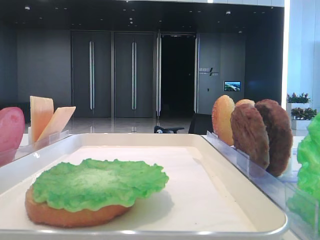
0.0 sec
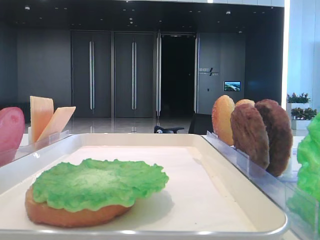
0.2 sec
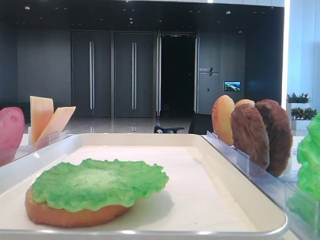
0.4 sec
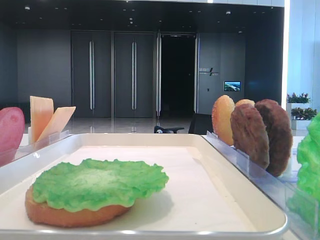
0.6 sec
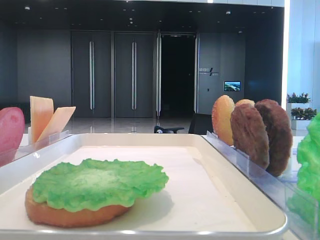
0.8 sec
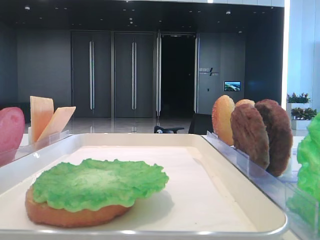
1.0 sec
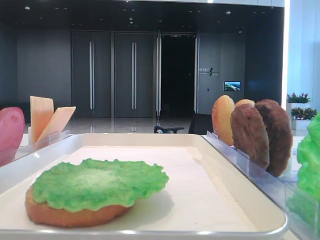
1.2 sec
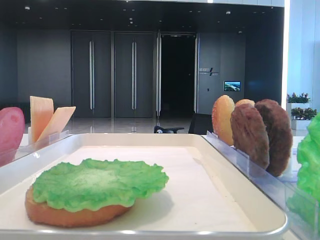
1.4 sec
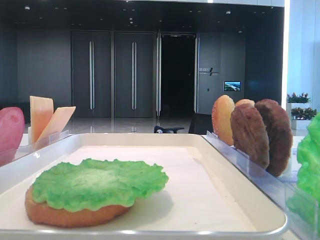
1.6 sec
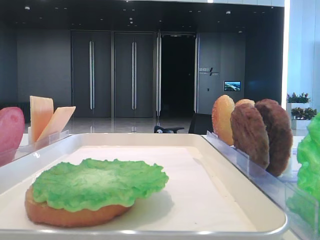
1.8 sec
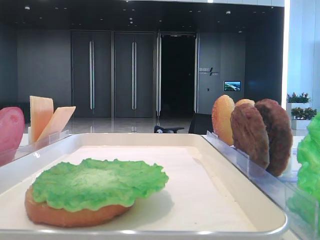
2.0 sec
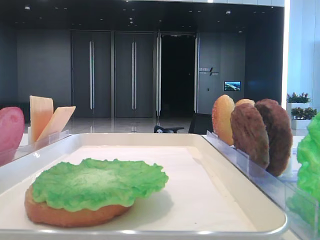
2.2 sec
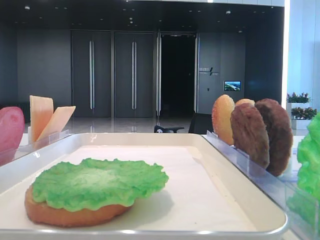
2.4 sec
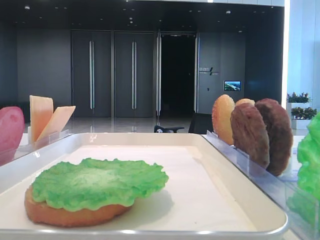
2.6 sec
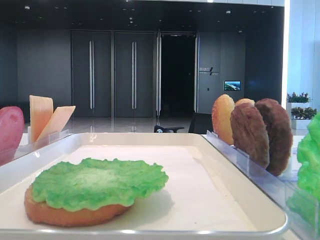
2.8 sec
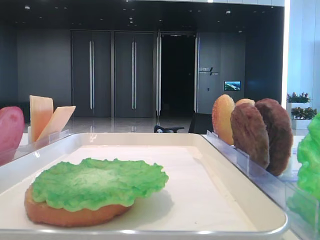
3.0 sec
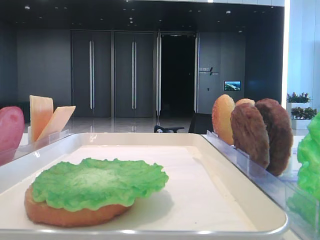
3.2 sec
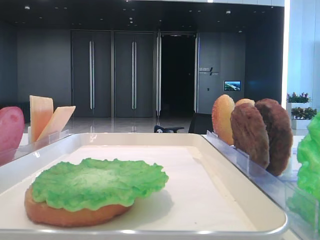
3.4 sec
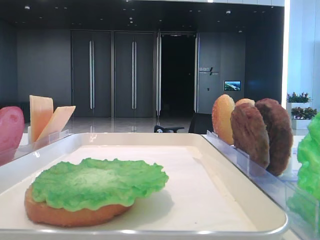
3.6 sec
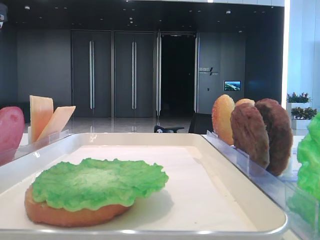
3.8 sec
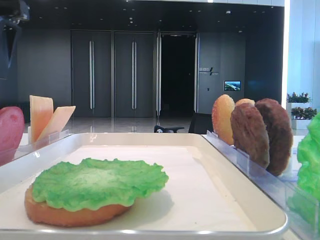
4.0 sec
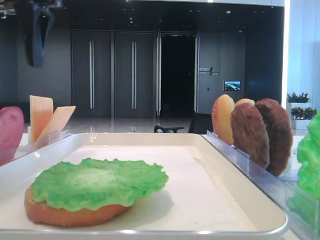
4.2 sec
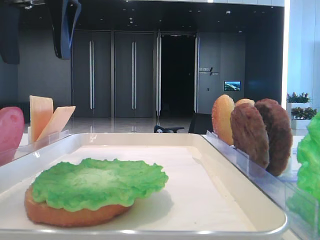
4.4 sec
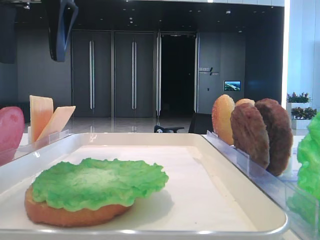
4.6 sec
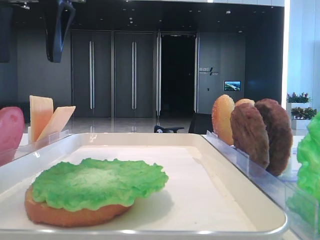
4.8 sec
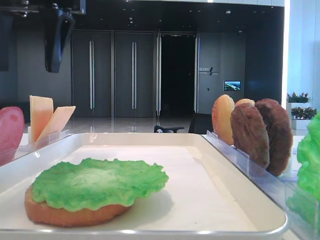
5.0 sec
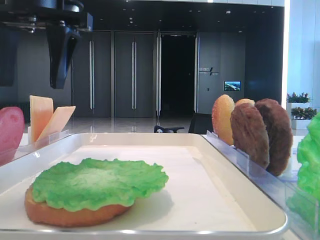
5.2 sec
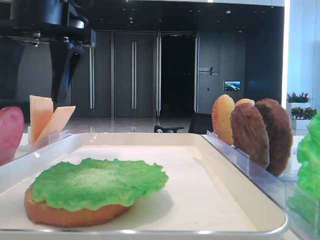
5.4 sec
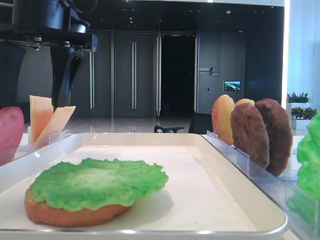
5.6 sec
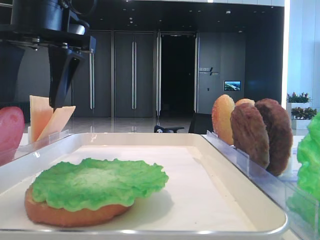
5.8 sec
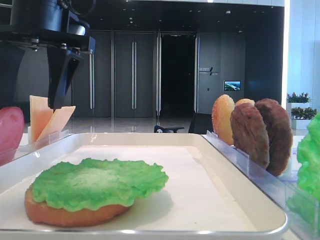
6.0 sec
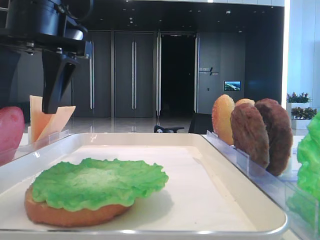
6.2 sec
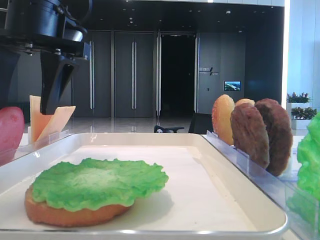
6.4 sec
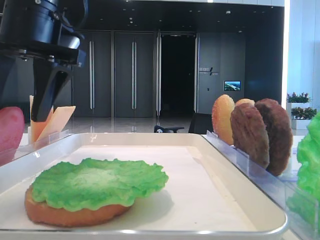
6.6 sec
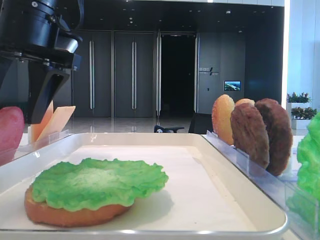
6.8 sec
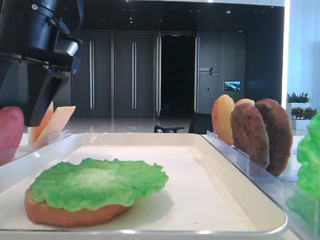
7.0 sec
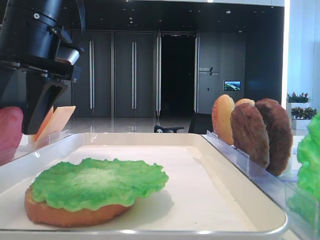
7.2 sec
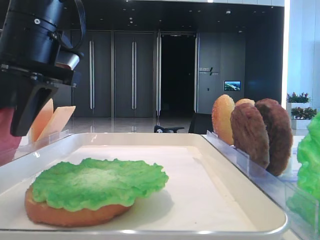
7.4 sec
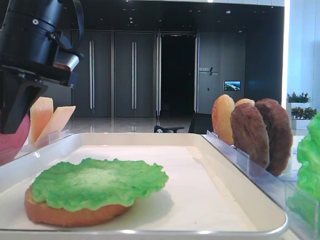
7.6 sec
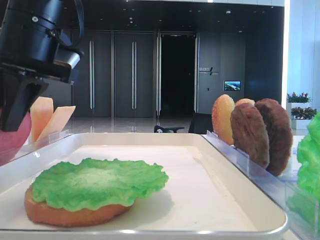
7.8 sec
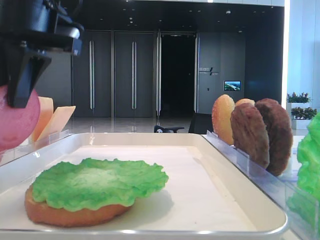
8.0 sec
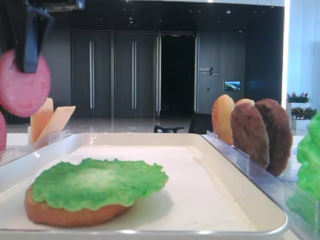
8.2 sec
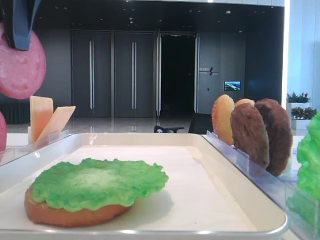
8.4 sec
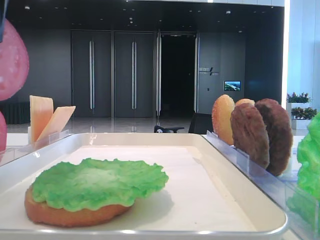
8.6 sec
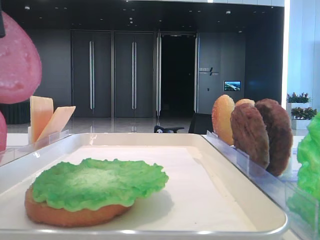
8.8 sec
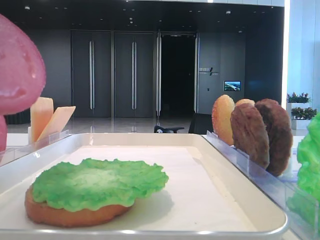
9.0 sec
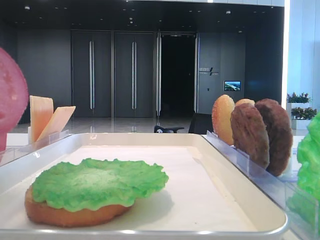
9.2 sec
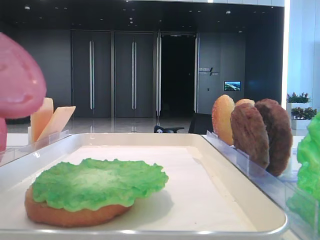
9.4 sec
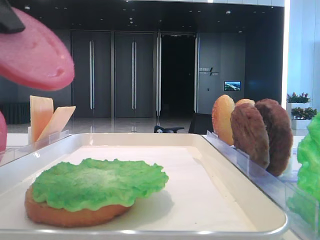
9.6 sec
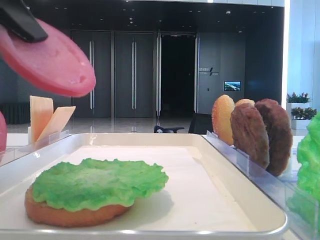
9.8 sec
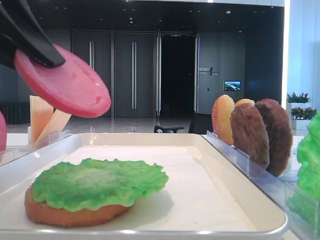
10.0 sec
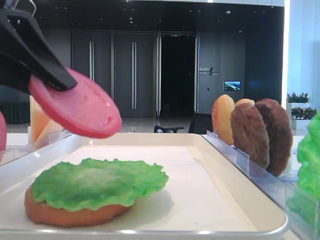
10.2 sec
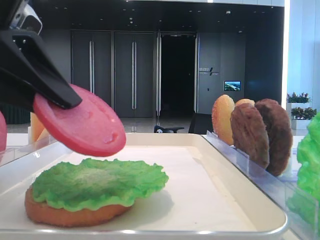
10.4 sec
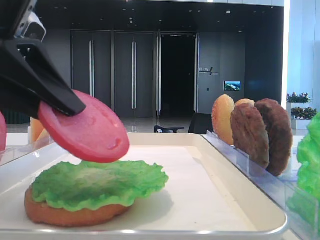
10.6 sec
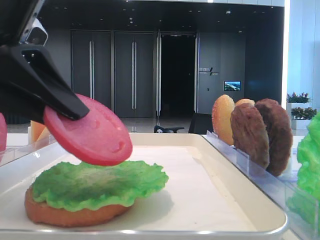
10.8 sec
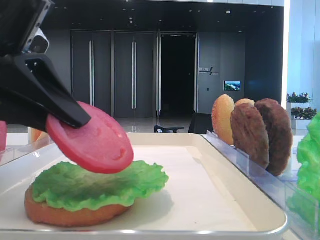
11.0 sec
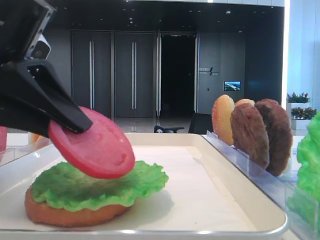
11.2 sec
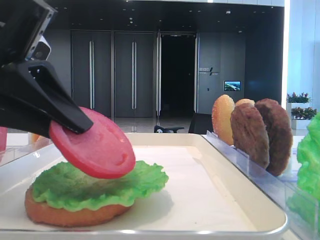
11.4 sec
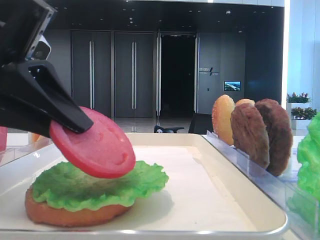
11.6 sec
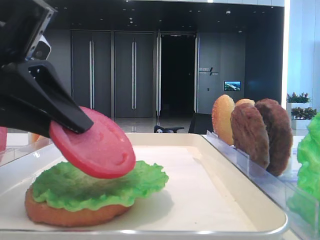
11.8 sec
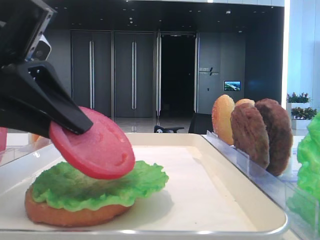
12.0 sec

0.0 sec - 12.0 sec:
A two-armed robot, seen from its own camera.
Step, 0.0 sec - 7.4 sec: Pick up the tomato slice with the left hand.
3.0 sec - 4.4 sec: The left gripper travels to the right by roughly 15 cm.
4.4 sec - 6.0 sec: The left gripper heads downward, covering some 5 cm.
6.0 sec - 7.6 sec: The left gripper closes its fingers.
7.6 sec - 9.0 sec: The left gripper moves backward, about 15 cm.
9.0 sec - 10.4 sec: The left gripper is displaced downward by about 10 cm.
10.4 sec - 12.0 sec: The grippers stay close to where they were, moving slightly.

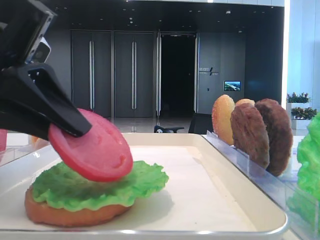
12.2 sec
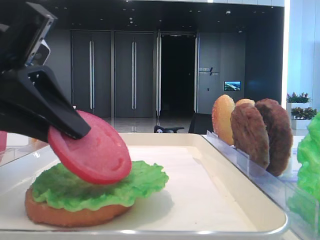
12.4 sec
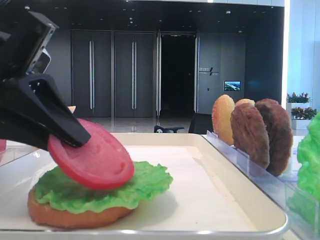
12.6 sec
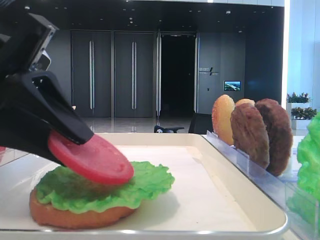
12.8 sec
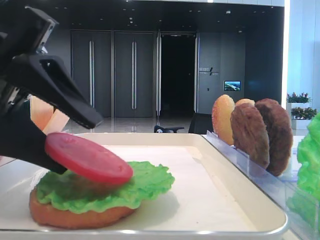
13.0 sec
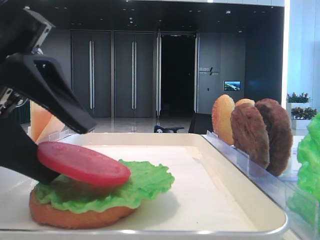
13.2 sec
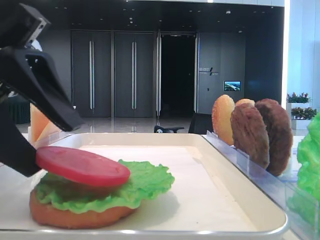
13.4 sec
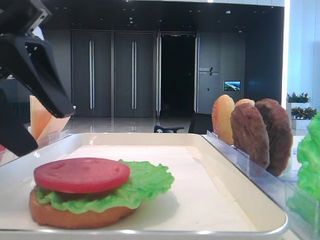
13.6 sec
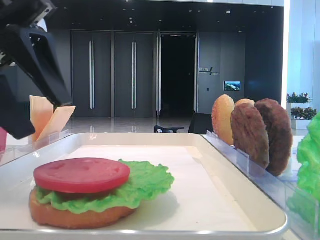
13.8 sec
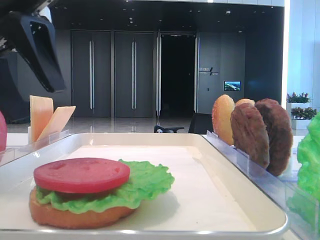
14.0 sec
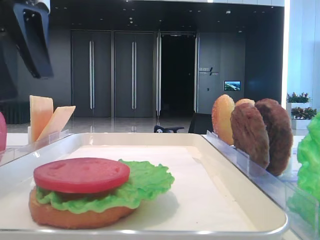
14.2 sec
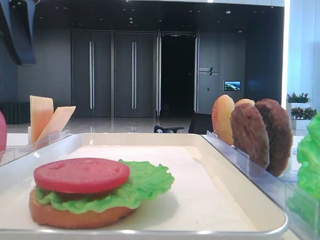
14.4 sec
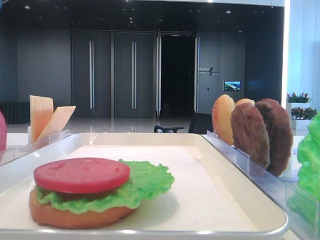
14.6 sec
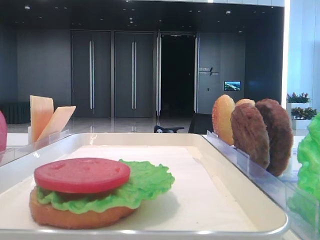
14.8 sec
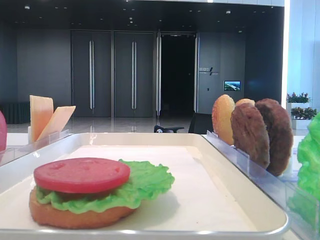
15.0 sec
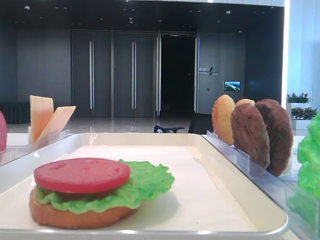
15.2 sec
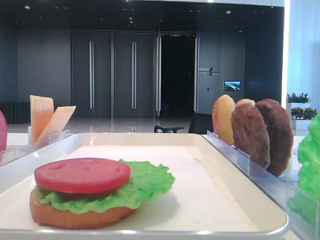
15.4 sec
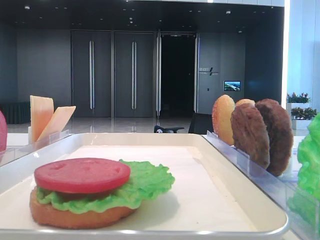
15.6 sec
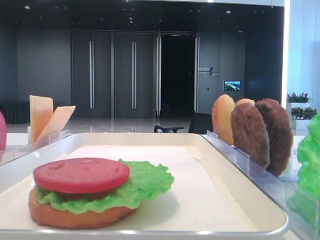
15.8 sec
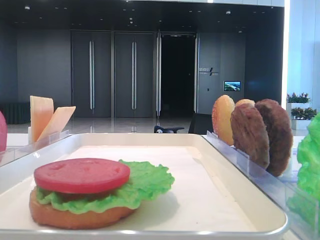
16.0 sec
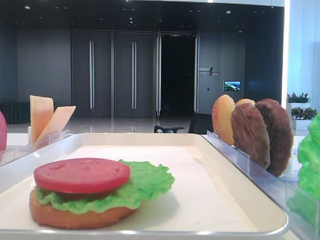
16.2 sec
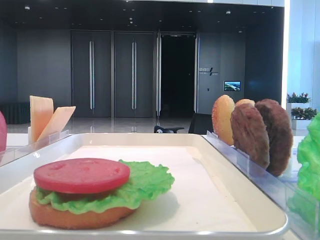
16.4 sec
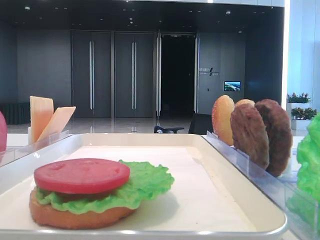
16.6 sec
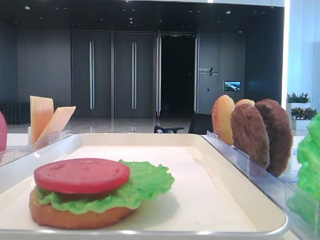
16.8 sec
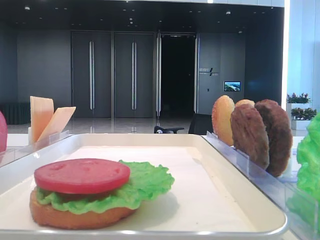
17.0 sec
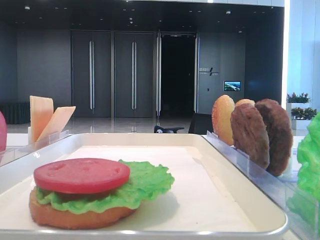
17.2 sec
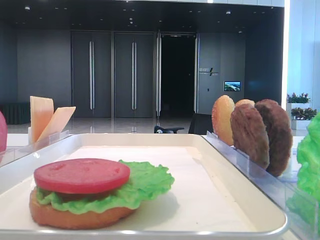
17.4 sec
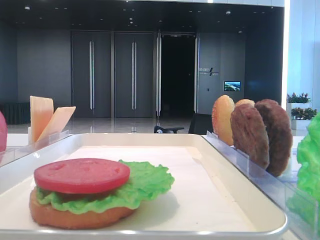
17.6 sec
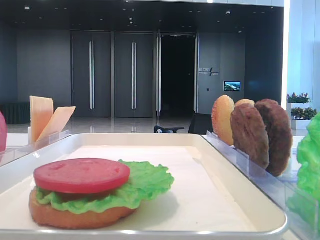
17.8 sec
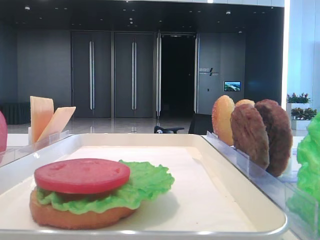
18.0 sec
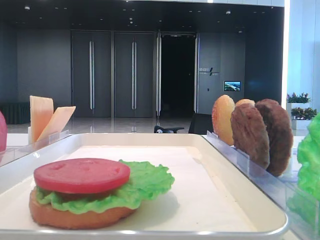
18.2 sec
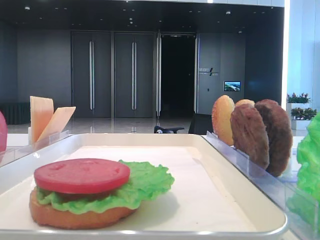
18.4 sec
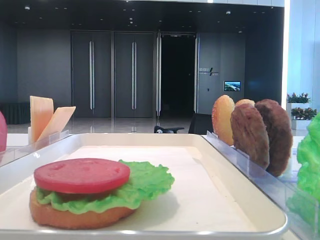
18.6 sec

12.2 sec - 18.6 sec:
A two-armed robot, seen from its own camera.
12.2 sec - 13.8 sec: The left gripper opens.
13.8 sec - 15.4 sec: The left gripper heads to the left and upward, covering about 20 cm.
15.4 sec - 17.0 sec: The left gripper goes some 25 cm backward.
17.0 sec - 18.6 sec: Both grippers stay put.
